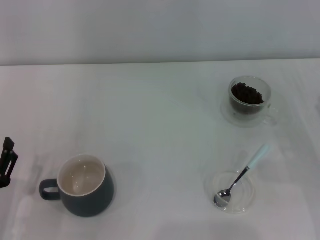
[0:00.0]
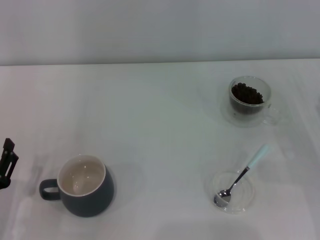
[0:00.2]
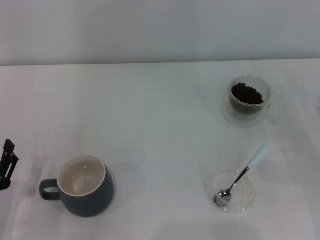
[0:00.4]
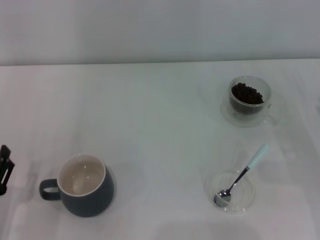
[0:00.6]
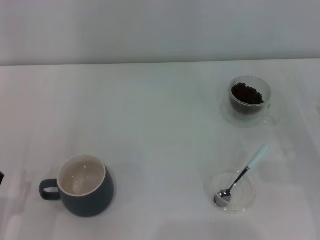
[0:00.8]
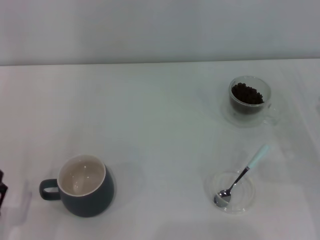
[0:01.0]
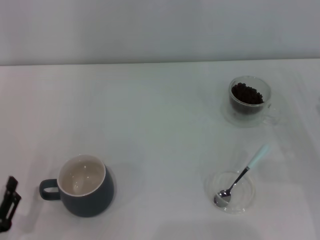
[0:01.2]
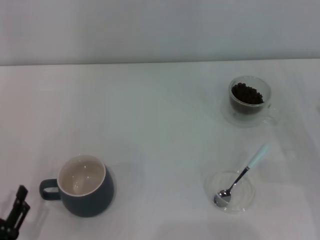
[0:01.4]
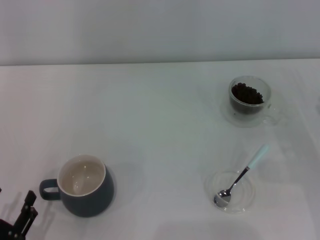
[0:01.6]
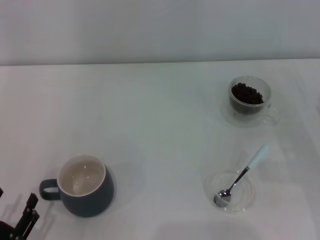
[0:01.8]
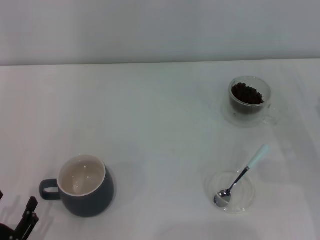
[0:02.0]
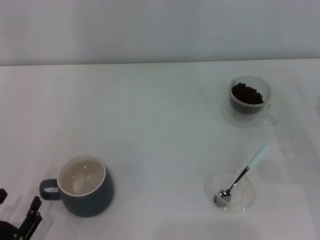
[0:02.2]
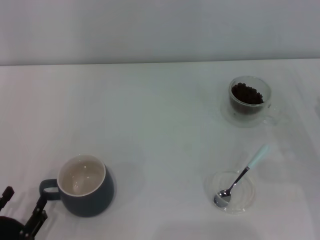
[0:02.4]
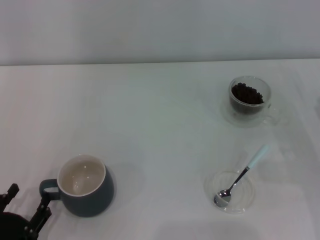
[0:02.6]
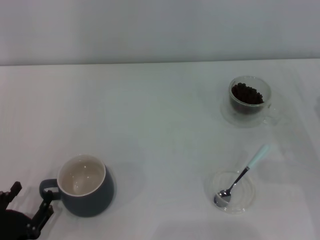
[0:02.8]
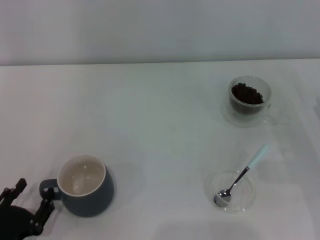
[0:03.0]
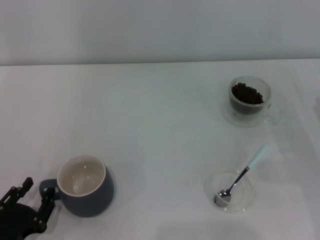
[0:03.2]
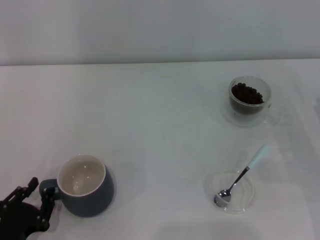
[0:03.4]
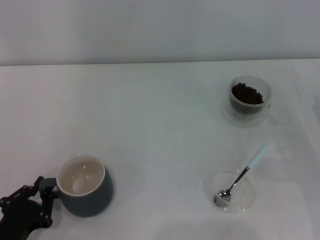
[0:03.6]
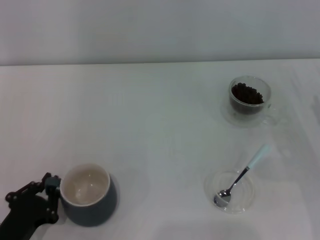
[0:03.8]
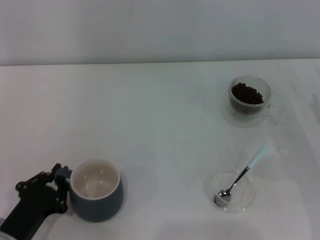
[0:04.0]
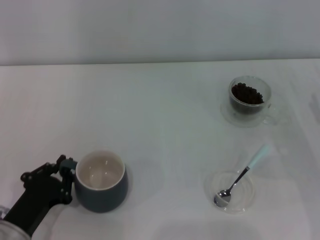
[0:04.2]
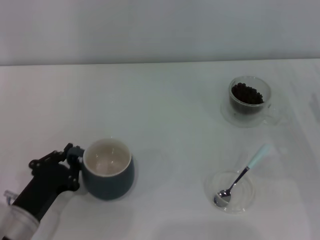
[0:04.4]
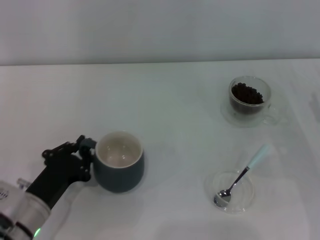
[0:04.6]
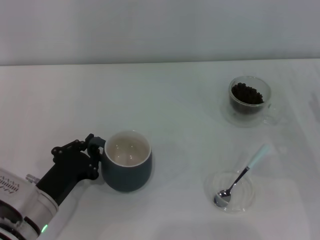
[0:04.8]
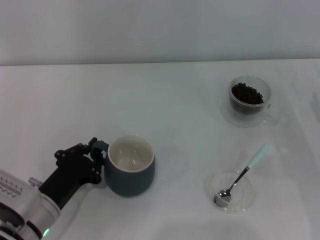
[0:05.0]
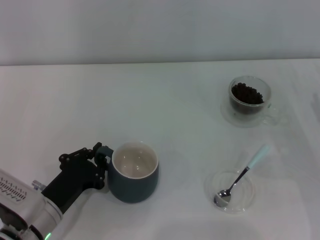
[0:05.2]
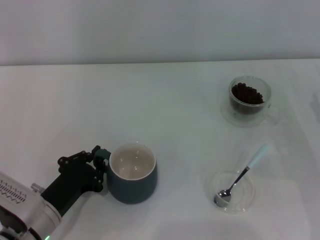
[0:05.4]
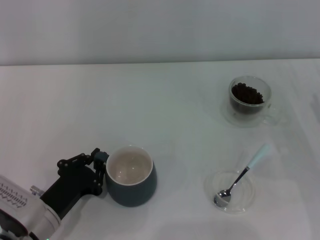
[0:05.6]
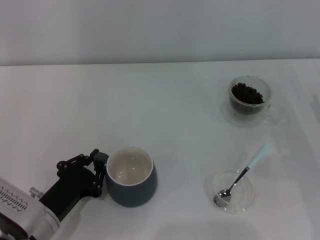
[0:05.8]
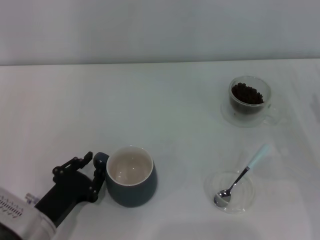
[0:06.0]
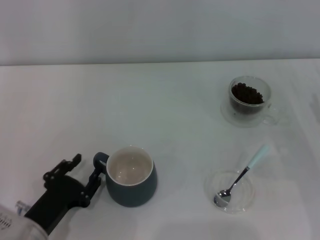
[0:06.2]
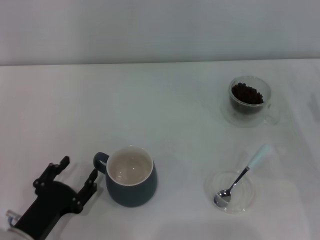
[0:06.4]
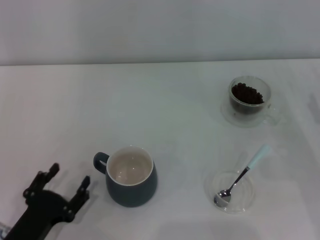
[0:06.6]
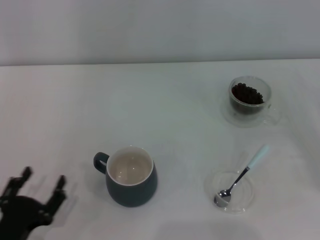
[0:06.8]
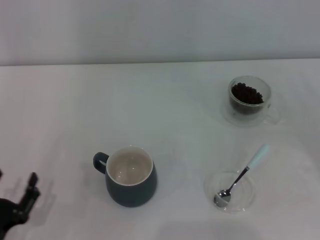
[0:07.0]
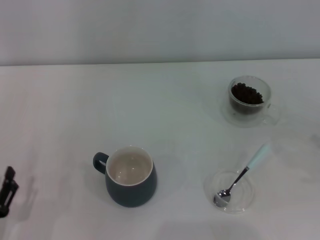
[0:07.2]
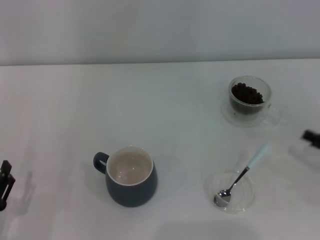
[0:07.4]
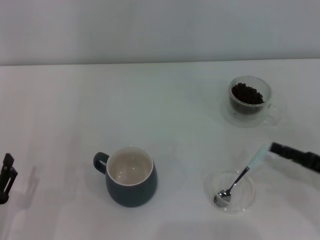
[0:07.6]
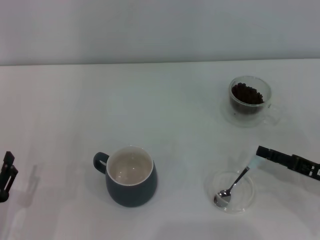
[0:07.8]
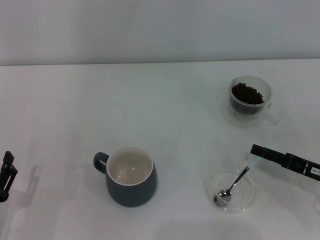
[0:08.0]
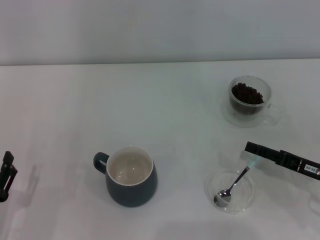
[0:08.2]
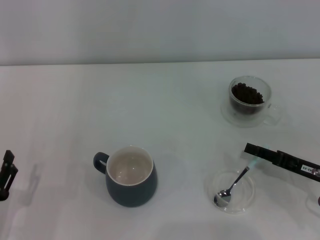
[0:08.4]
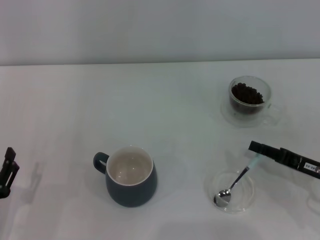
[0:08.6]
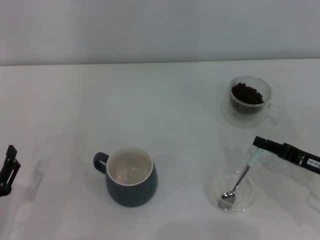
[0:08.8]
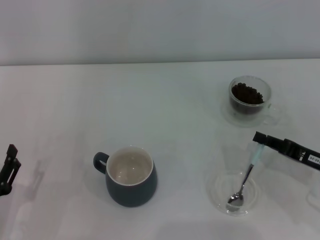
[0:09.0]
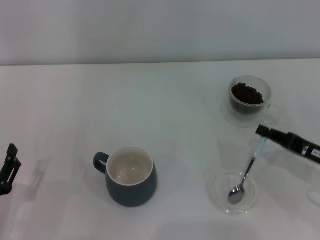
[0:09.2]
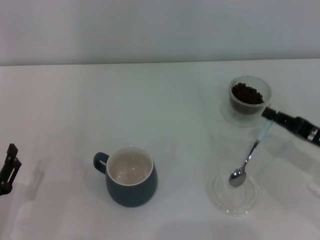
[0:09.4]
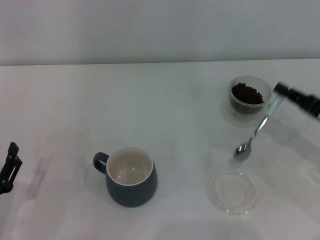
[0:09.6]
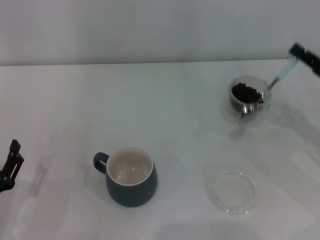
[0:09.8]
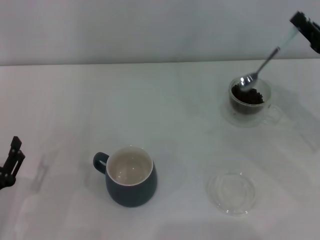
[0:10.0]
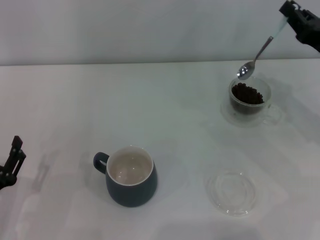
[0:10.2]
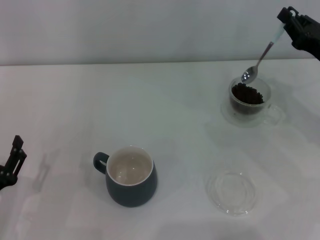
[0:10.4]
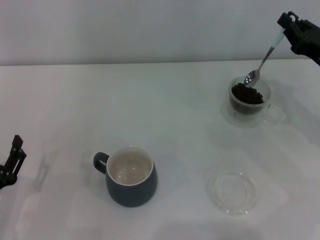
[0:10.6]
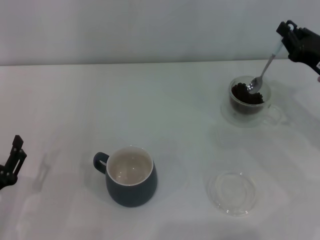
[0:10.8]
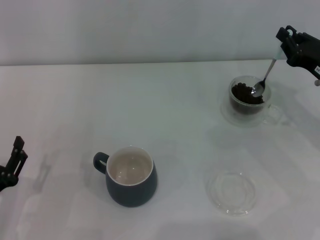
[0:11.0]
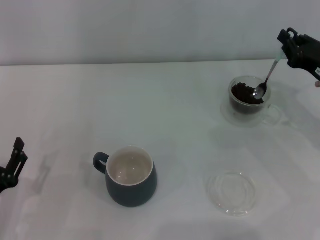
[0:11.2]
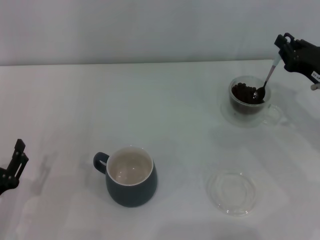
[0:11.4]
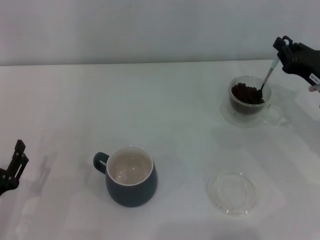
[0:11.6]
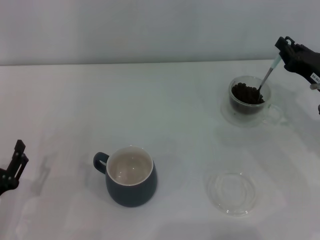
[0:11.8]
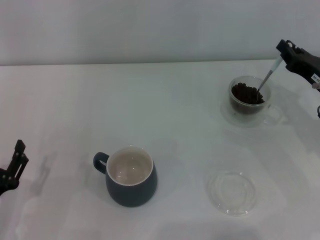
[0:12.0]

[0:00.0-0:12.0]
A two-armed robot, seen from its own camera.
Task of the whole recording: Use a blue spoon to take out the coffee beans from the glass and pour them into the gray cup.
Step, 0:00.0 to 0:06.4: Move the cup to the center of view with the left gripper.
Step, 0:06.6 to 0:09.4: Pick up the spoon with the right gripper.
0:00.0 to 0:01.6: The left gripper moves backward, about 5 cm.
0:01.6 to 0:03.0: The grippers stay close to where they were, moving slightly.
0:03.0 to 0:04.4: The left gripper travels forward by about 5 cm, and closes up.
0:04.4 to 0:06.0: There are only small adjustments of the grippers.
0:06.0 to 0:07.6: The right gripper moves some 5 cm to the right and comes back. Meanwhile the left gripper shifts roughly 10 cm to the left and backward, and opens.
0:07.6 to 0:09.0: The right gripper closes its fingers.
0:09.0 to 0:10.4: The right gripper heads forward and upward, covering approximately 10 cm.
0:10.4 to 0:12.0: The grippers make only small movements.

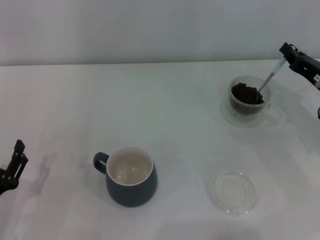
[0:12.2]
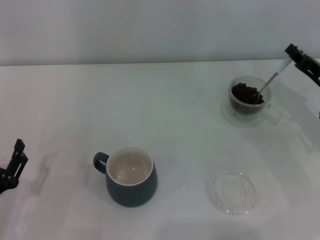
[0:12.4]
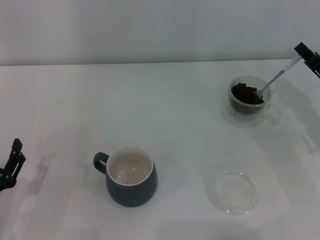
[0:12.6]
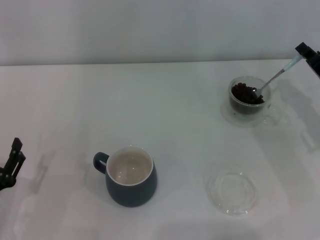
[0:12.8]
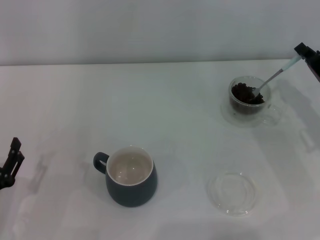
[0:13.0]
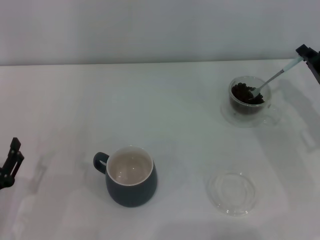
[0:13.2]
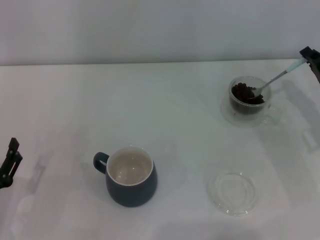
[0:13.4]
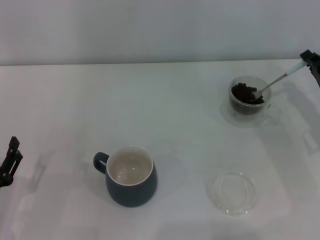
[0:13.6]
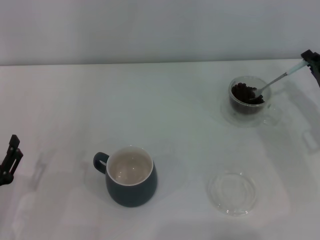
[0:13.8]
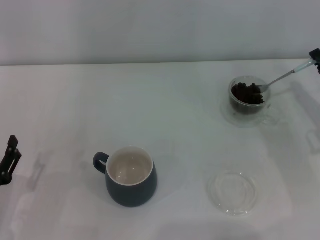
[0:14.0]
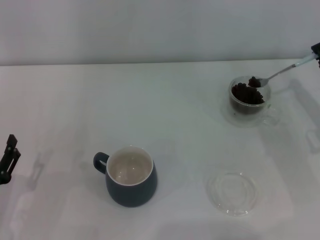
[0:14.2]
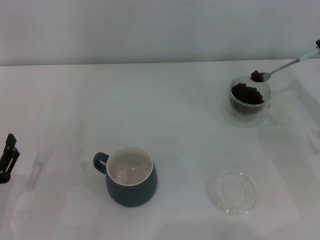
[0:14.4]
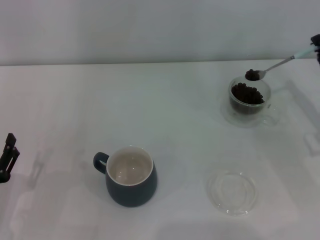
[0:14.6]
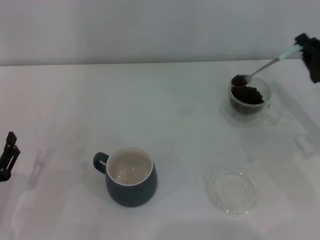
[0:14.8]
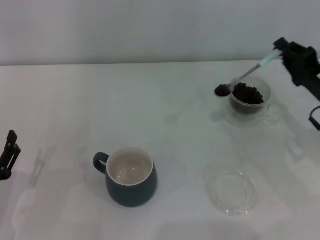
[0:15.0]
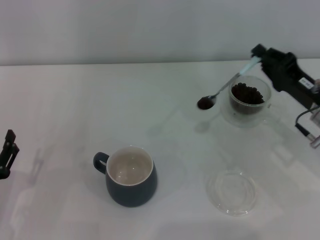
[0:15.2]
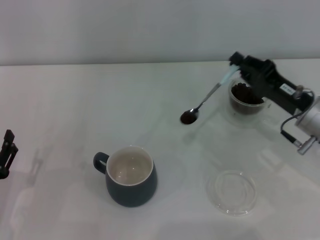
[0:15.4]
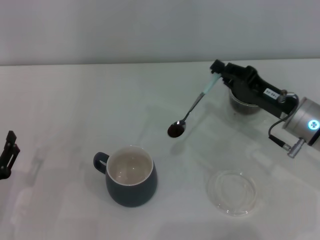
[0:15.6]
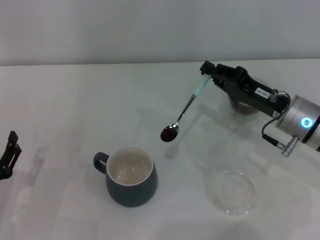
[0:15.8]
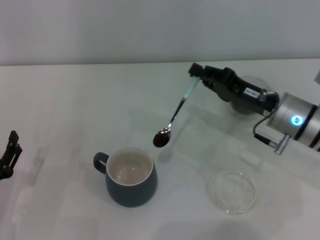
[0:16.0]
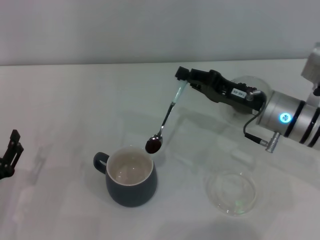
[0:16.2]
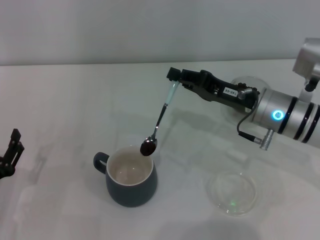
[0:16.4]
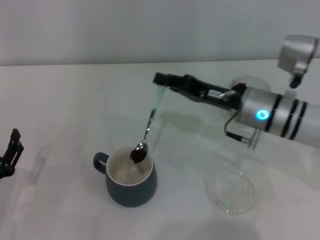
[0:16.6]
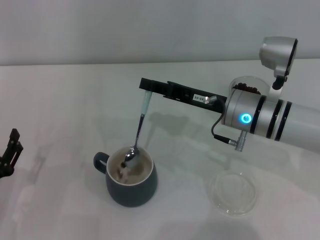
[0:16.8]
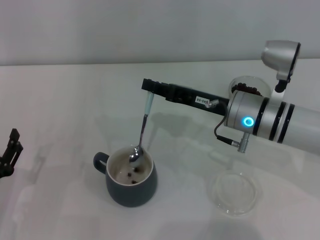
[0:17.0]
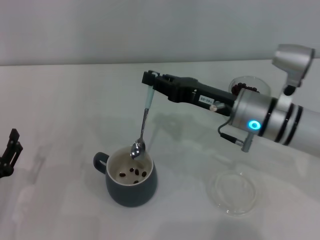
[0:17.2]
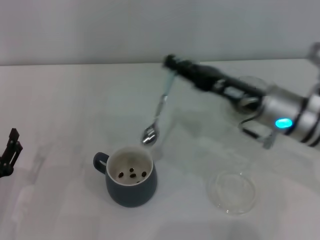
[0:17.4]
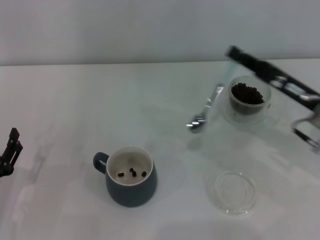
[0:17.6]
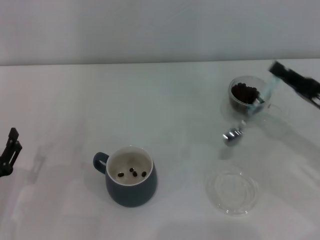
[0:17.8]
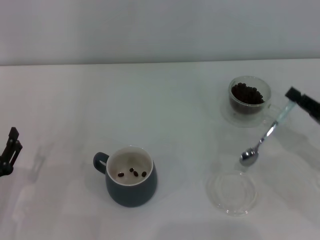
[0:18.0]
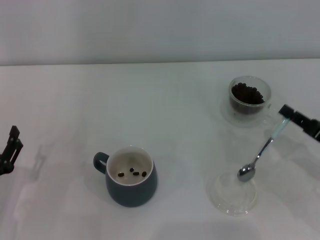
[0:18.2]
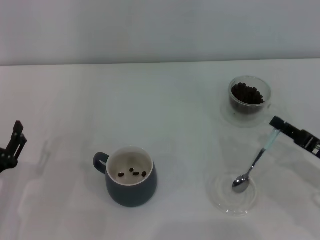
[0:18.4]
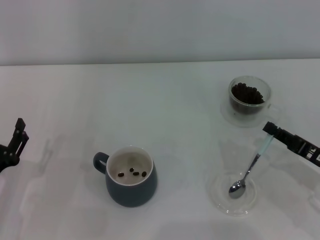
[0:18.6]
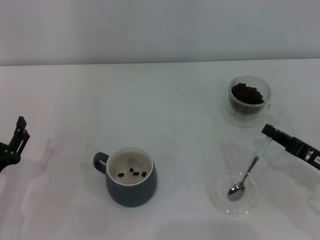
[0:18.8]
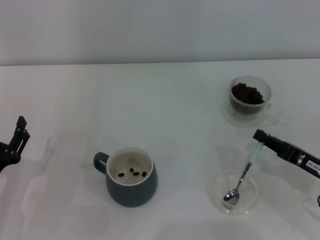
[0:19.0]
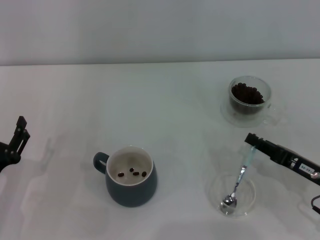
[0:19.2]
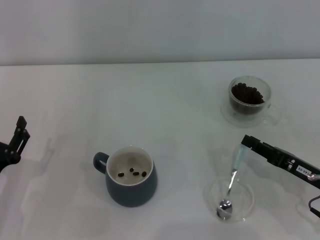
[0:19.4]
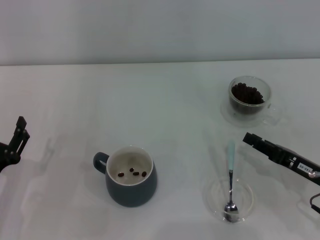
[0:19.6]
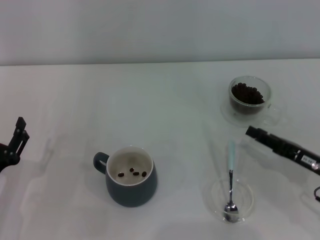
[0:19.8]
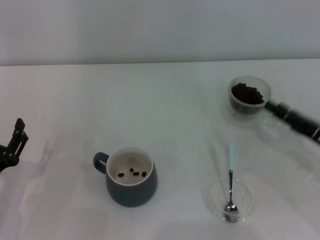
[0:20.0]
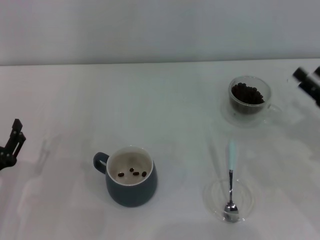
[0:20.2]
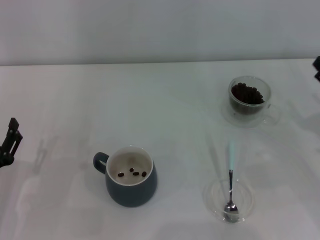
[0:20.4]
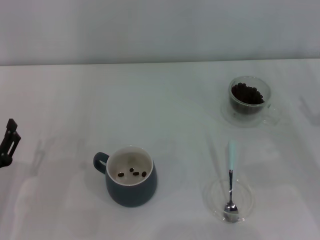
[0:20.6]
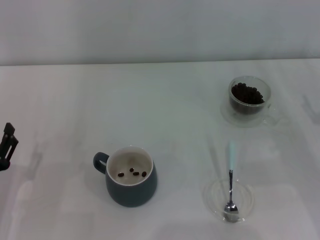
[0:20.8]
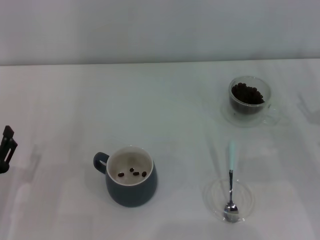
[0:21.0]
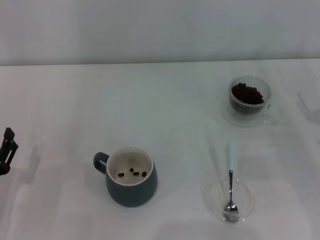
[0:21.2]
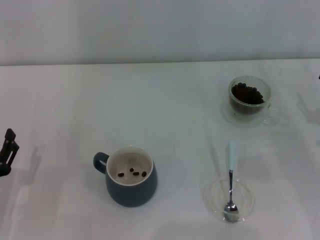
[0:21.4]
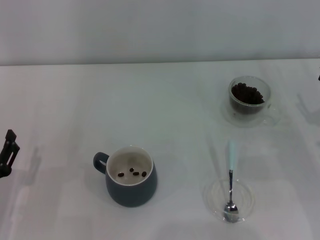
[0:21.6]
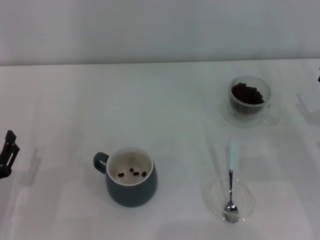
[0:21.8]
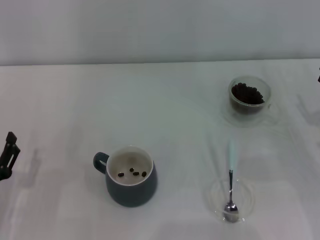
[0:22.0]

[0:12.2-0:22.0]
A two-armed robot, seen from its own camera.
Task of the whole recording: Use a blue spoon to take out the coffee beans from the glass and pour them into the gray cup.
Step, 0:12.2 to 0:17.0: Scoop a spoonful of beans into the cup with the right gripper.
Step, 0:17.2 to 0:19.6: Place the spoon back in its original place with the right gripper.
0:15.0 to 0:16.4: The right gripper travels to the left by some 10 cm.
0:16.4 to 0:17.8: The right gripper heads to the right and backward, covering some 15 cm.
0:17.8 to 0:19.2: The right gripper is displaced downward by roughly 5 cm.
0:19.2 to 0:20.6: The right gripper moves to the right, about 5 cm, and opens up.
